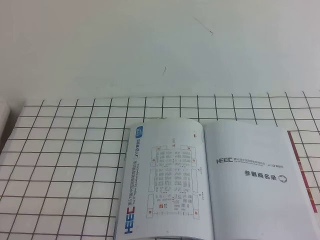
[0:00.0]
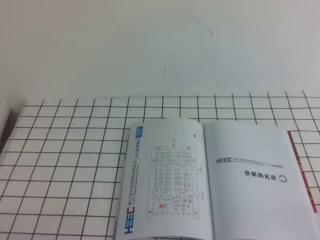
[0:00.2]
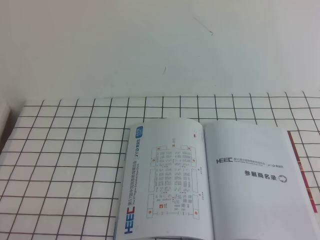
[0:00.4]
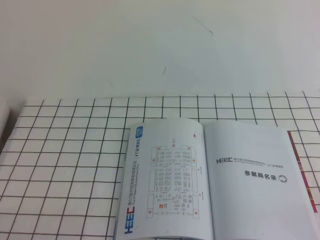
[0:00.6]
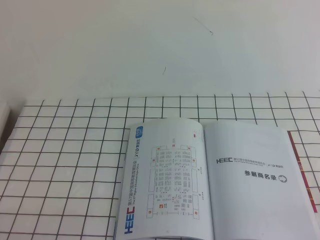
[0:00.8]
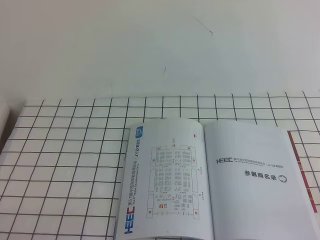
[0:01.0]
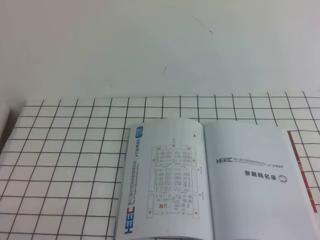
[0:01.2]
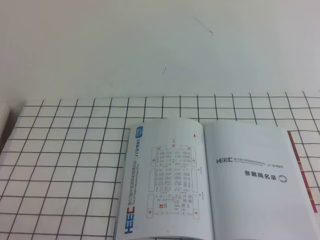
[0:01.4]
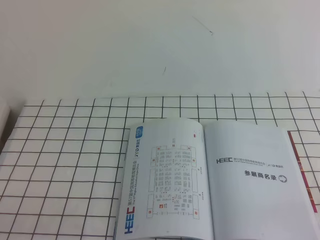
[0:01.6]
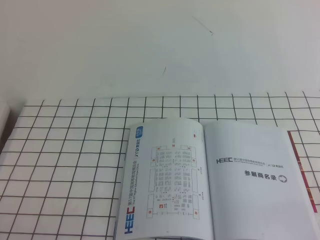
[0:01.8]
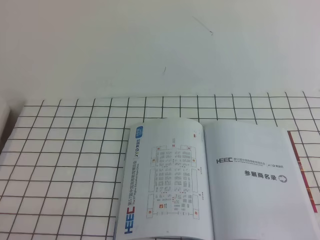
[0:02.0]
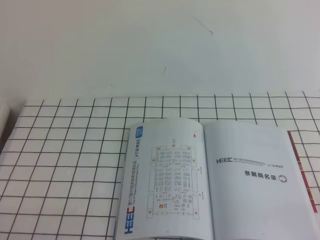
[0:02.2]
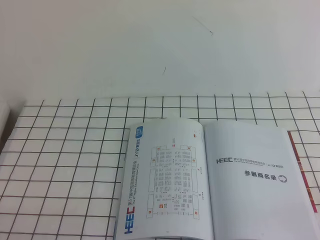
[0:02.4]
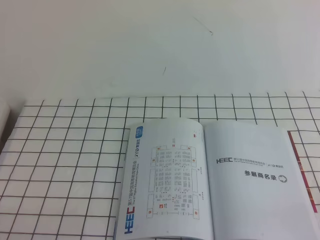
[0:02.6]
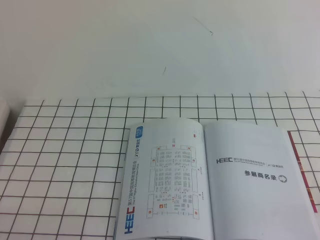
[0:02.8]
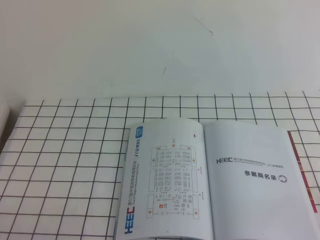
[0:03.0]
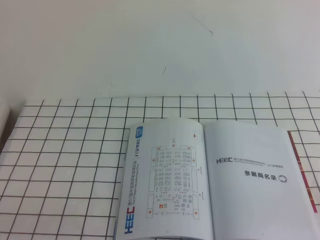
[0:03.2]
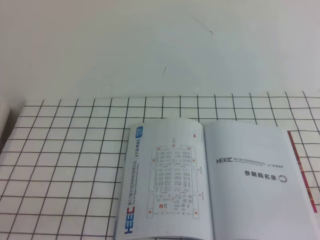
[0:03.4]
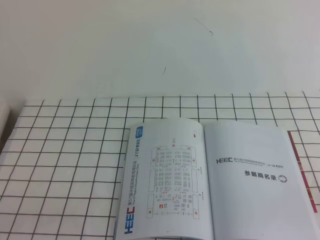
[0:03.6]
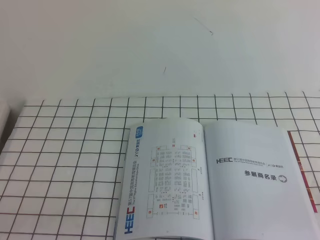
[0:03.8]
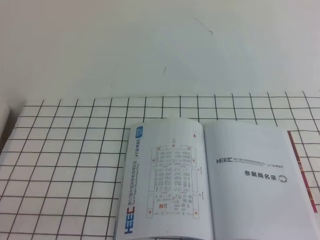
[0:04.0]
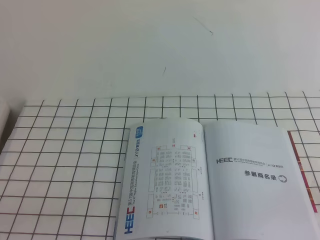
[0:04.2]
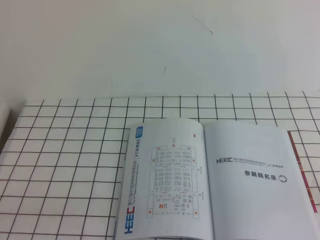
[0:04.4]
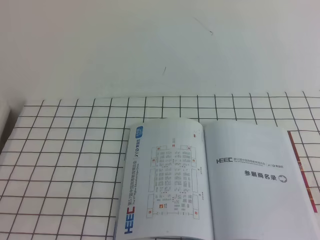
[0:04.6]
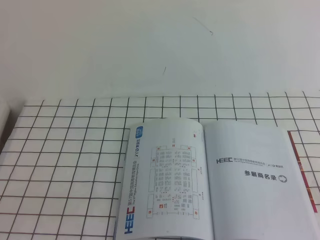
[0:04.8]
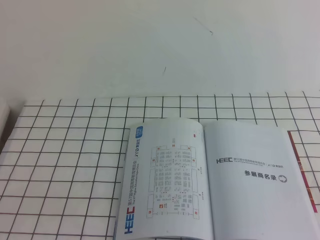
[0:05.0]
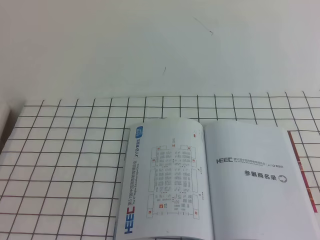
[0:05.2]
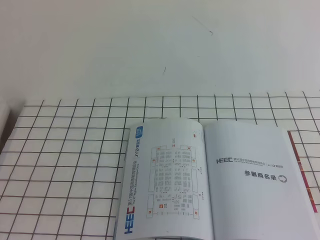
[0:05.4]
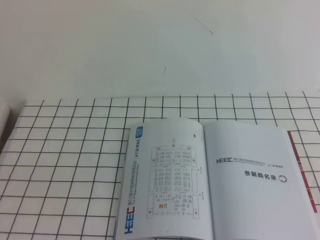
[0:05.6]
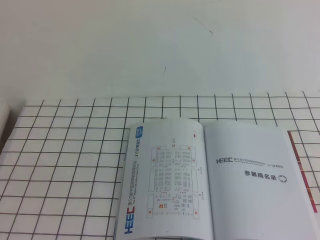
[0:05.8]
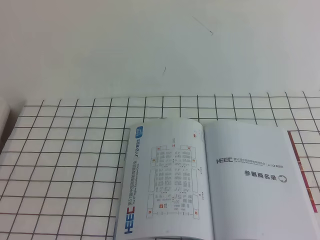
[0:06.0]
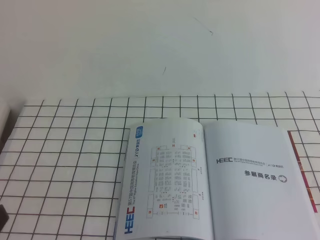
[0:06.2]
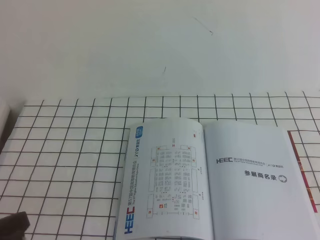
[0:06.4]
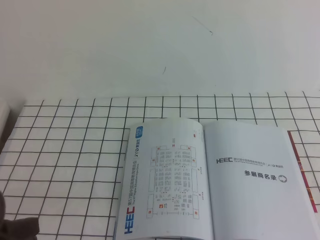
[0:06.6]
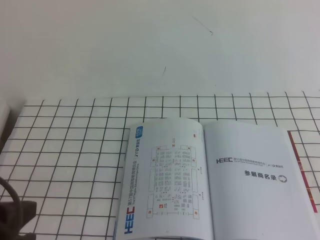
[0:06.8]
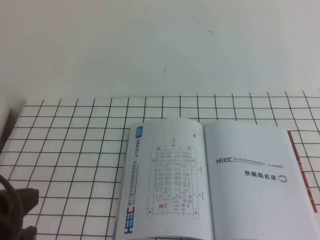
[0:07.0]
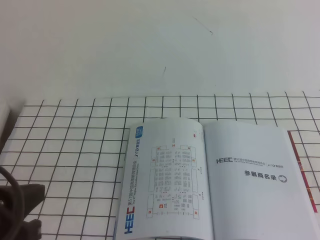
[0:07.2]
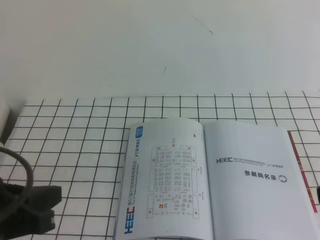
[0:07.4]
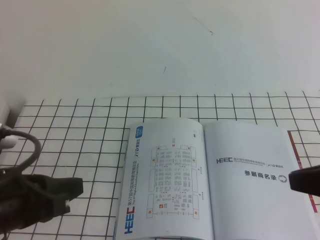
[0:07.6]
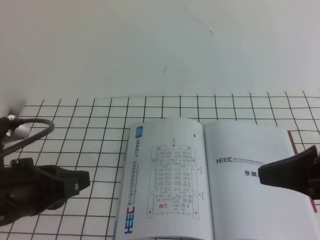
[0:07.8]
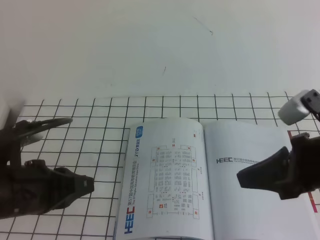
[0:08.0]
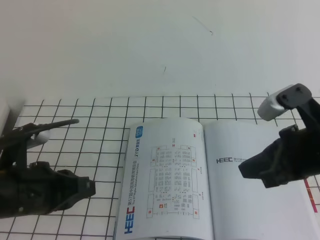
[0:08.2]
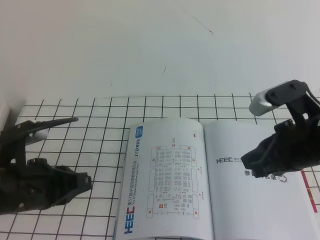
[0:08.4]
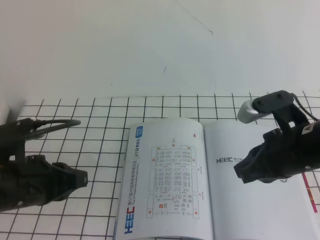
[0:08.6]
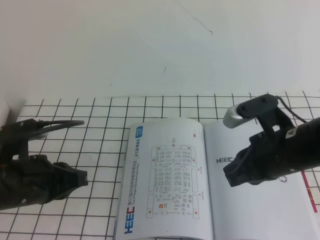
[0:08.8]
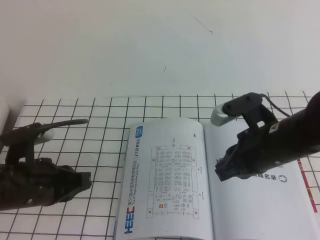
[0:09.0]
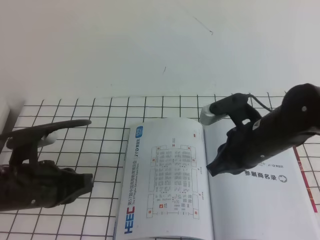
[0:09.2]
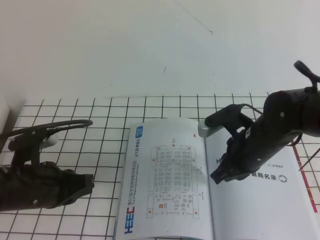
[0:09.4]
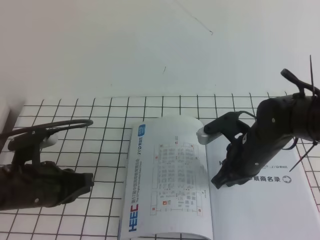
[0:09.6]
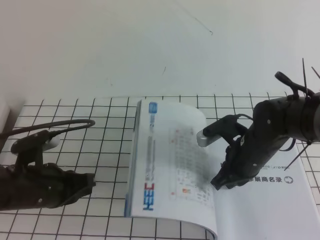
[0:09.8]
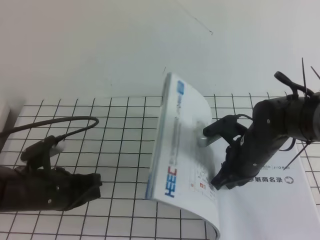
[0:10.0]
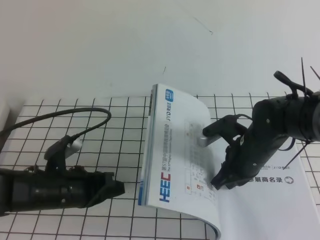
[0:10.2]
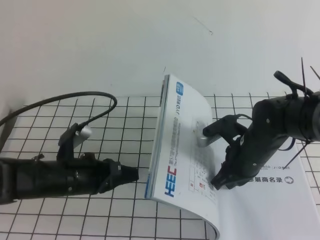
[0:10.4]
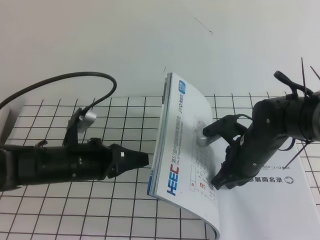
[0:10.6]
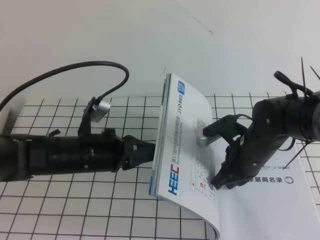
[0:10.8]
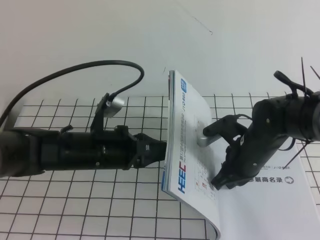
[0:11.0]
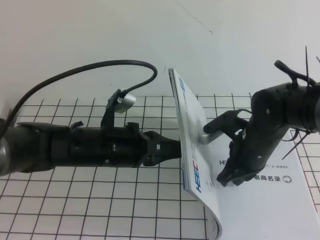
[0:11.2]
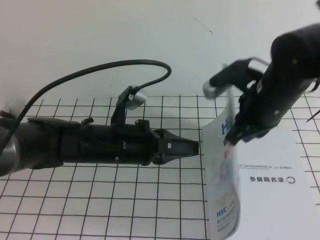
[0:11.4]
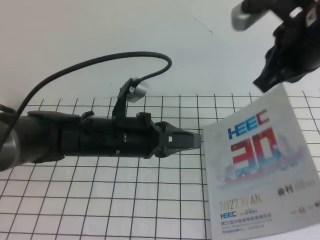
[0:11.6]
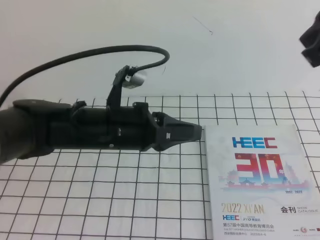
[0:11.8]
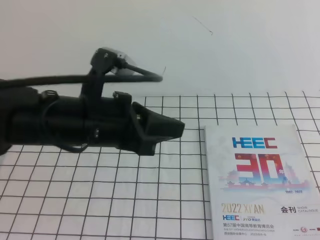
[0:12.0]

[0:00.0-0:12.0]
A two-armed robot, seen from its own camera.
Task of the whole recording: on the white tablecloth, hold the book with one hand and close it with the other.
0:06.0 to 0:07.6: The left gripper travels forward by about 10 cm; the right gripper is displaced forward, to the left and downward by about 15 cm.
0:07.6 to 0:09.0: The right gripper travels forward, to the left and downward by some 15 cm. The left gripper moves forward and downward, roughly 10 cm.
0:09.0 to 0:10.4: The left gripper is displaced downward by approximately 5 cm, while the right gripper travels downward and forward by about 10 cm.
0:10.4 to 0:12.0: The left gripper goes some 15 cm upward and to the right, while the right gripper heads upward and backward, covering approximately 35 cm.

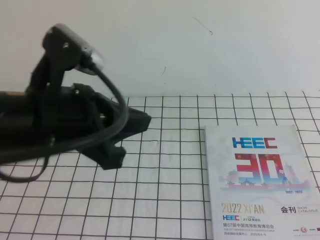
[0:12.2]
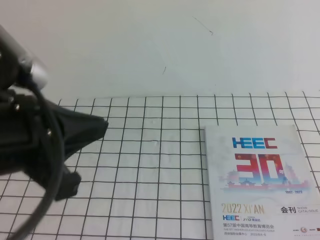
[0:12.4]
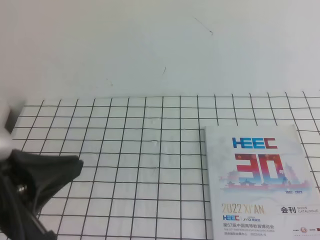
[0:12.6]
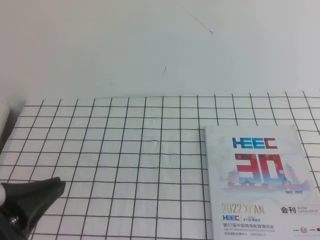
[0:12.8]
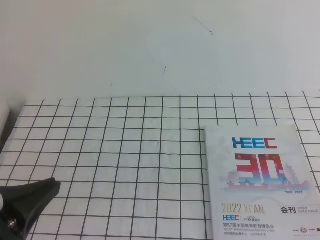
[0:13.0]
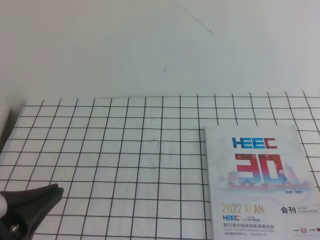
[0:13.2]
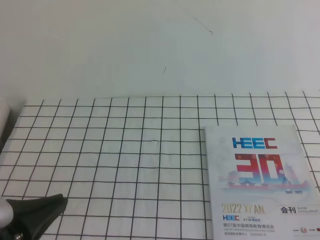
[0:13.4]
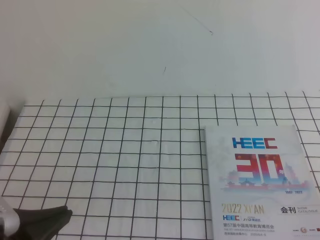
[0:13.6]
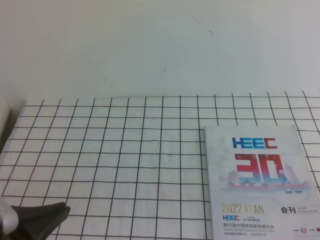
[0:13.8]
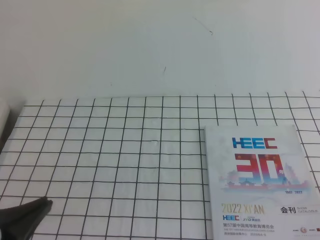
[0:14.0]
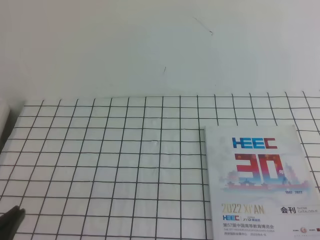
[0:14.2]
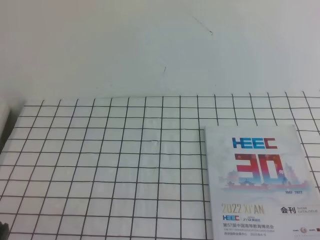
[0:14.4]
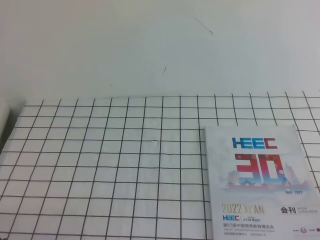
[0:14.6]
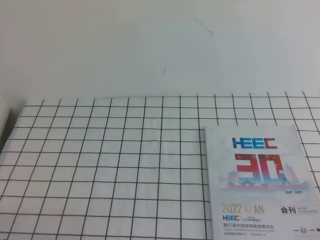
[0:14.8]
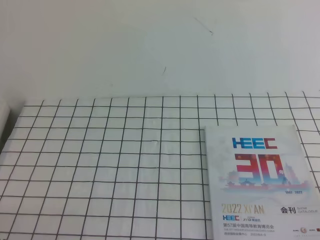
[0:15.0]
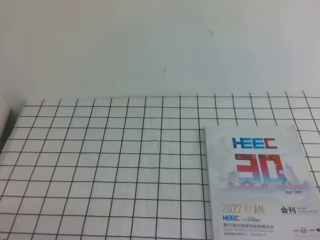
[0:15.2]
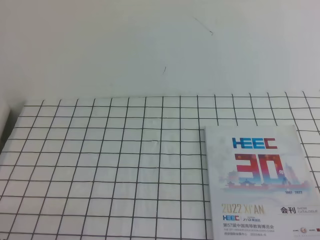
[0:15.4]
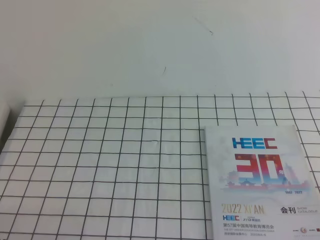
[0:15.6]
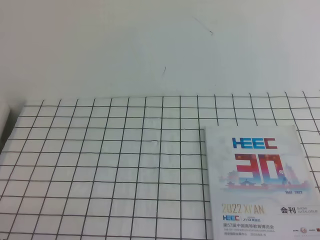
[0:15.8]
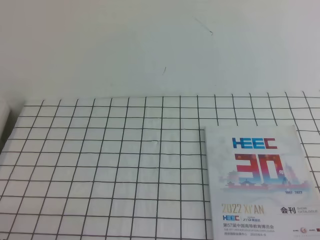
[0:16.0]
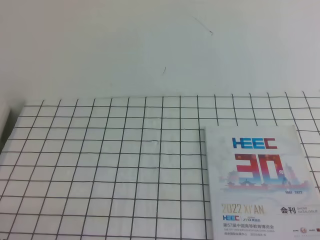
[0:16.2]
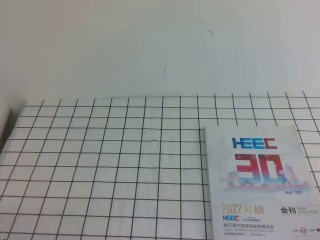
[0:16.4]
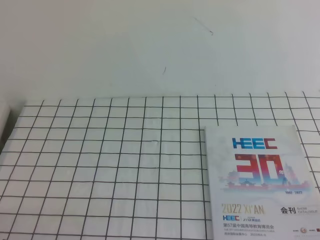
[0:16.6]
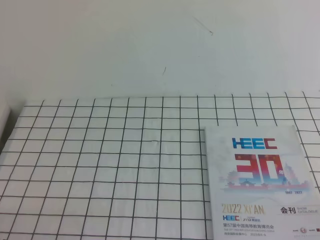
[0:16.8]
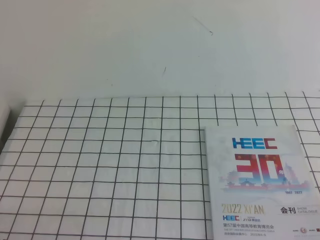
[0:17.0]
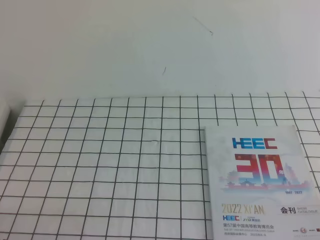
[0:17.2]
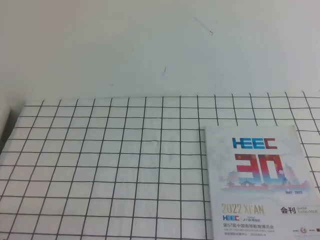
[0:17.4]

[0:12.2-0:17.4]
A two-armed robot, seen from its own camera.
Task of the whole recording: on the white tablecloth, hold the book with one hand and close it with the other.
Step, 0:12.2 to 0:17.4: Close the open book.
0:12.2 to 0:14.0: The left gripper goes about 20 cm backward, to the left and downward, while the right gripper goes roughly 20 cm downward.
0:14.0 to 0:15.6: The left gripper moves downward, about 10 cm.

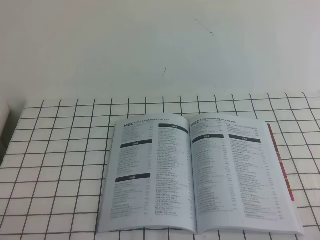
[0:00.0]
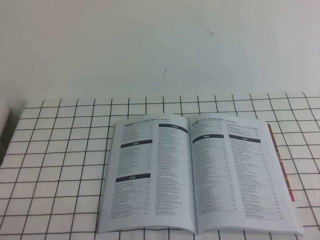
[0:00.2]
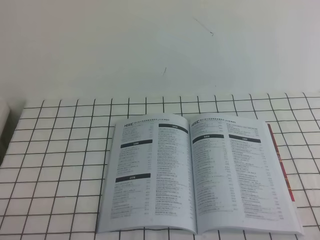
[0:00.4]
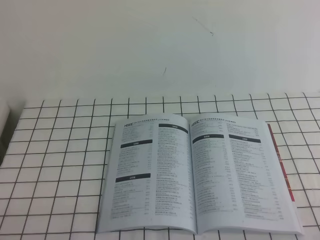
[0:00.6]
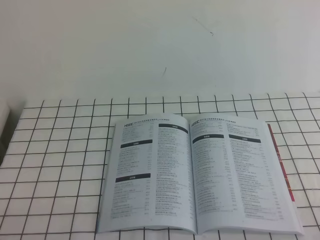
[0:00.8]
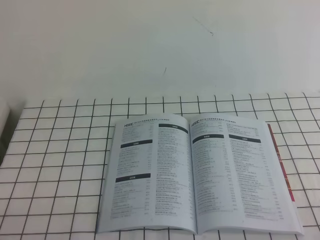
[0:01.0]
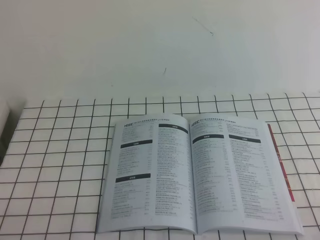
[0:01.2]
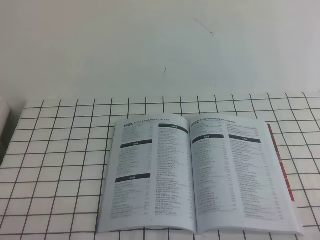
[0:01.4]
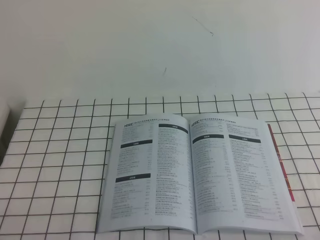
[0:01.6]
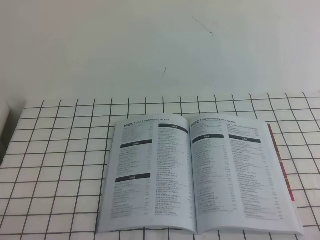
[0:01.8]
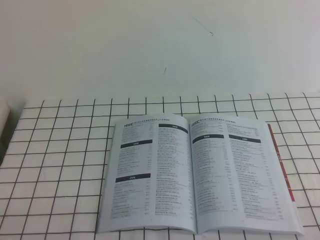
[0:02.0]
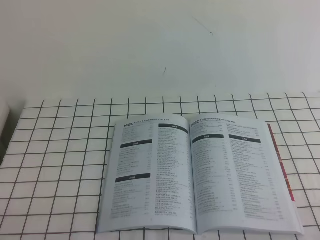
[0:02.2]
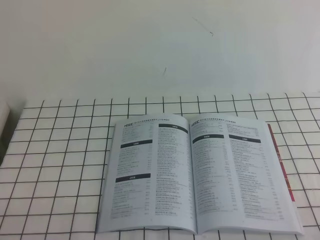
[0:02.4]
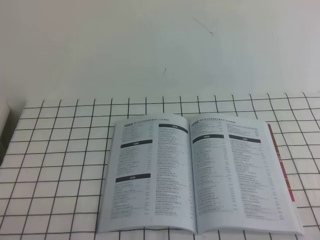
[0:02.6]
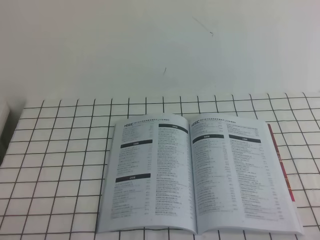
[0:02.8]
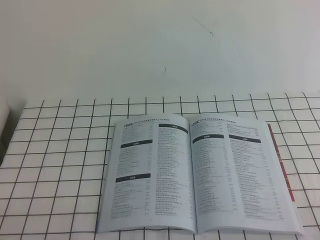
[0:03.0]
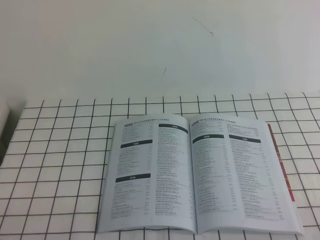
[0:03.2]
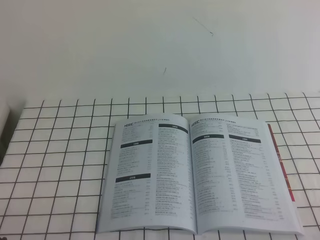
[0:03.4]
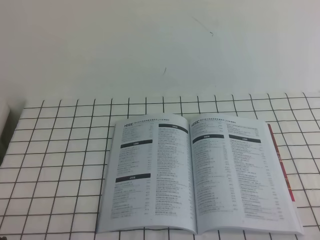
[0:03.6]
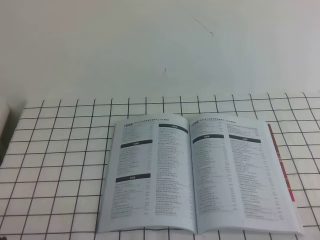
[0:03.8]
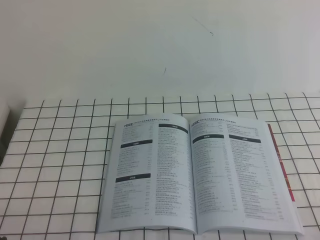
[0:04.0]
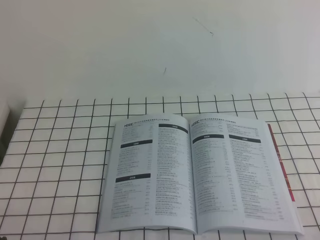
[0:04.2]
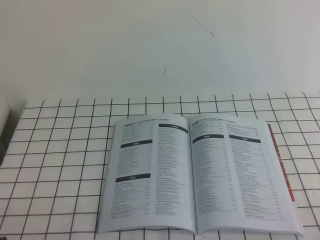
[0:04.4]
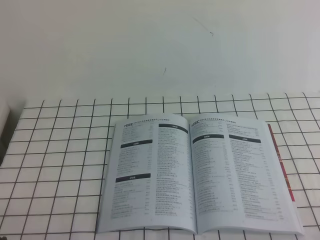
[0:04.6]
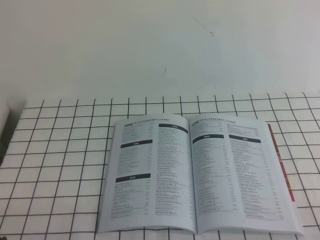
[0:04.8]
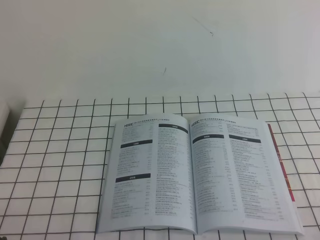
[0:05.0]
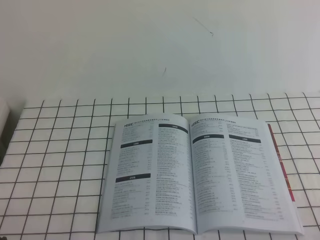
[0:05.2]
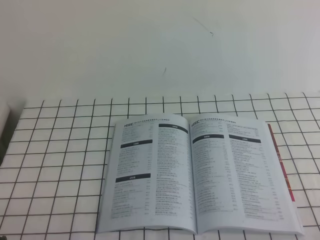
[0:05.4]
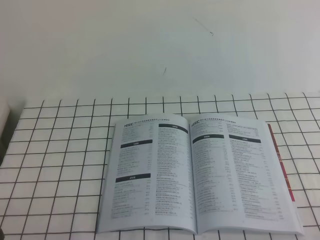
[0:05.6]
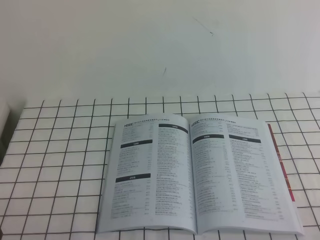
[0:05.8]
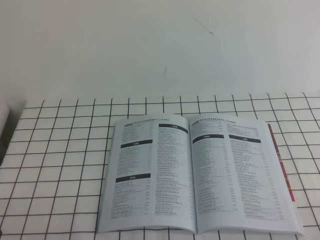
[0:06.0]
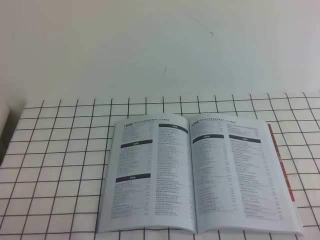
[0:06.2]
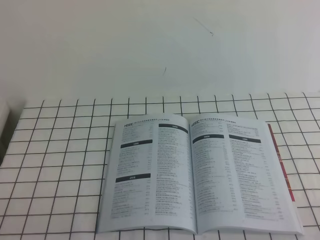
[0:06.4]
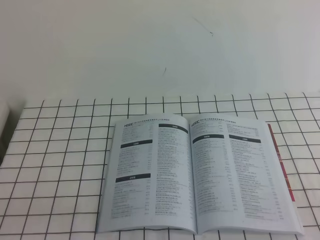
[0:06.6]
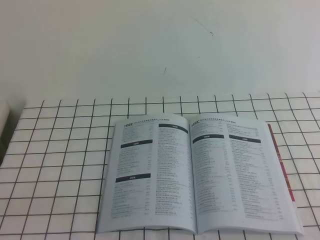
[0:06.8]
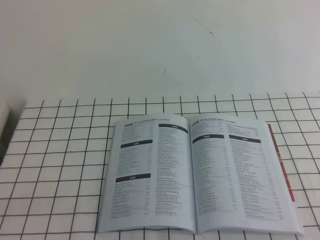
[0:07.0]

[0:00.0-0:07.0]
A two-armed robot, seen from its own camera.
Task of the whole recording: on the white tablecloth, hold the book with one hand and close it with the other.
0:00.0 to 0:04.2: Both grippers stay put.
0:04.2 to 0:05.6: Both grippers stay about where they are.
